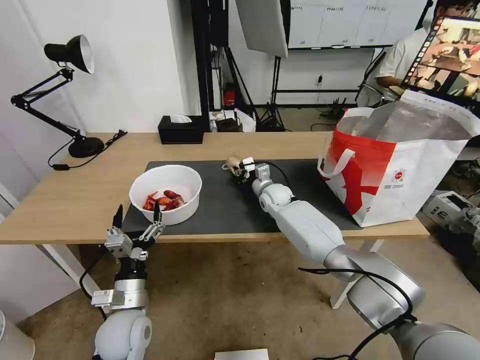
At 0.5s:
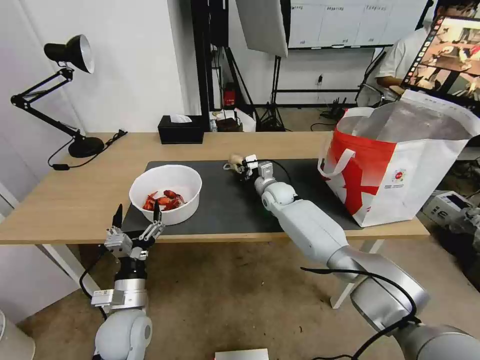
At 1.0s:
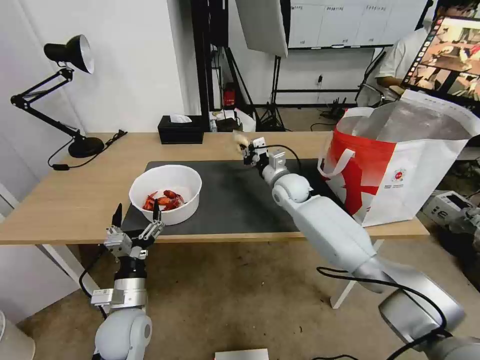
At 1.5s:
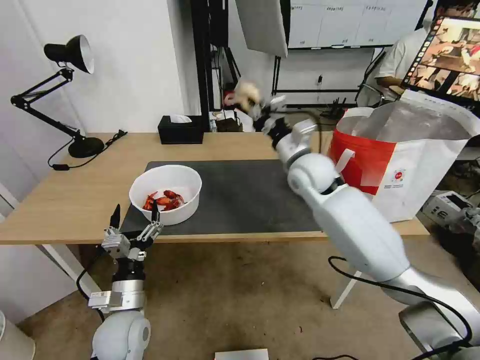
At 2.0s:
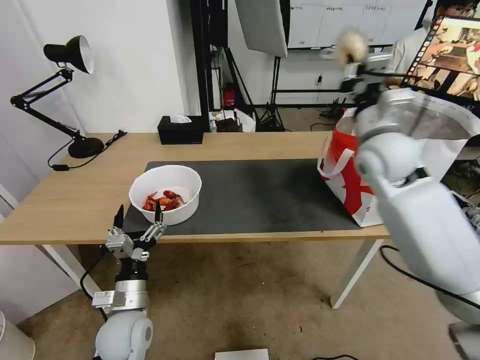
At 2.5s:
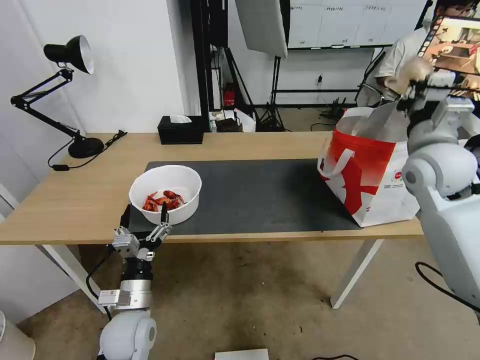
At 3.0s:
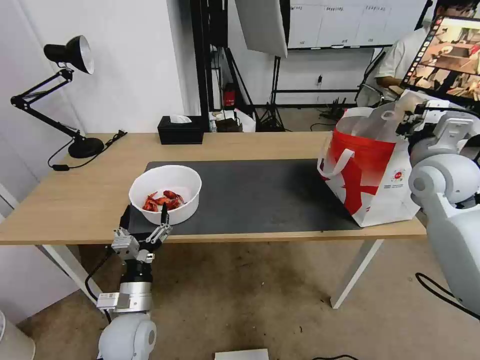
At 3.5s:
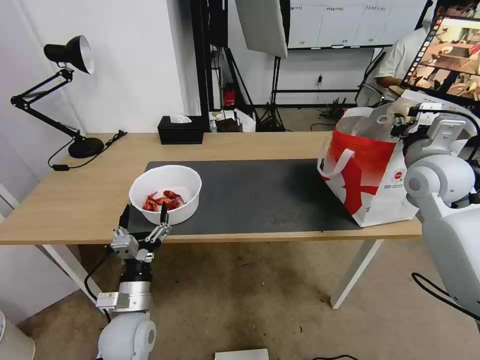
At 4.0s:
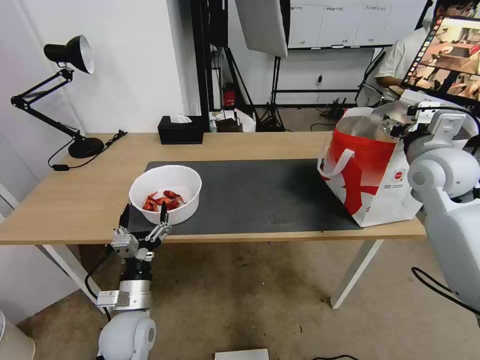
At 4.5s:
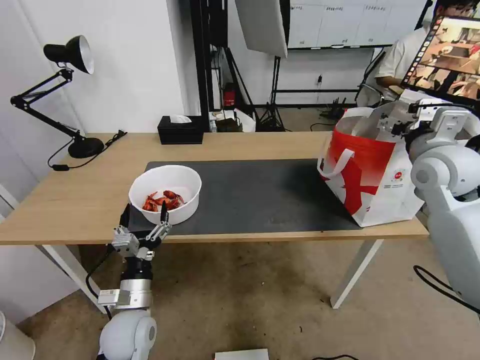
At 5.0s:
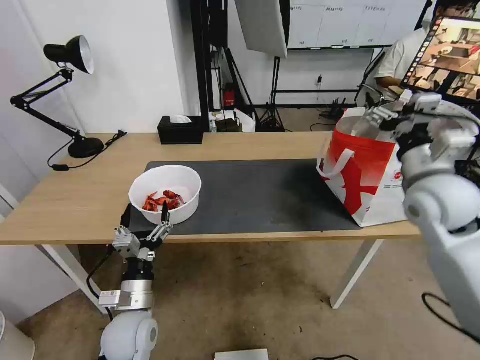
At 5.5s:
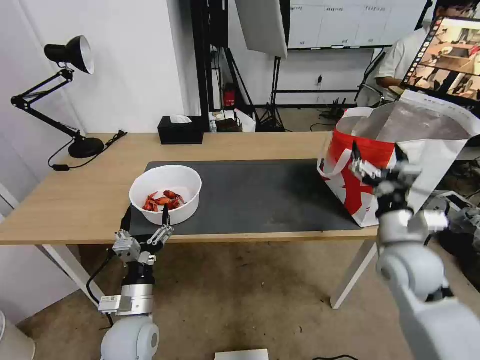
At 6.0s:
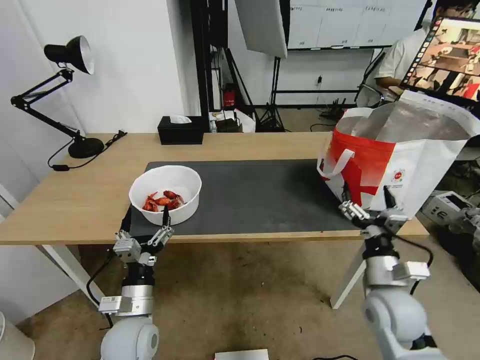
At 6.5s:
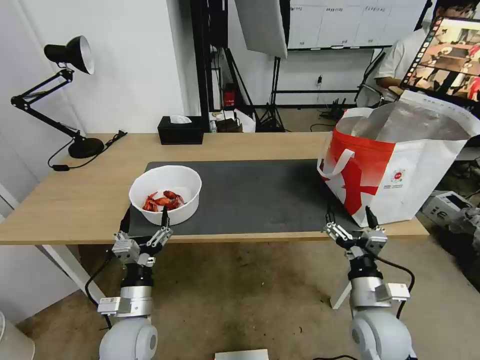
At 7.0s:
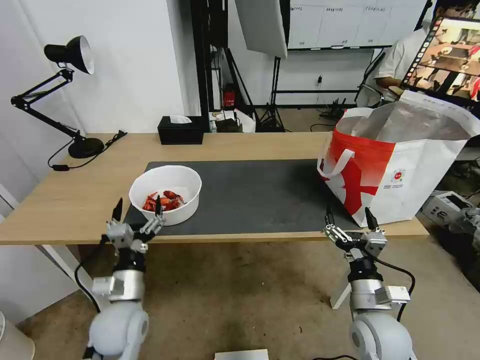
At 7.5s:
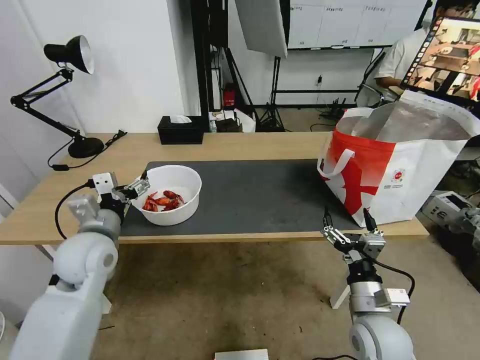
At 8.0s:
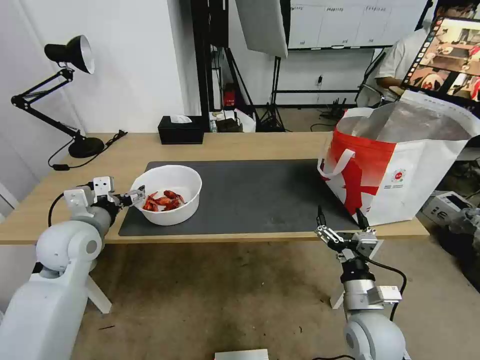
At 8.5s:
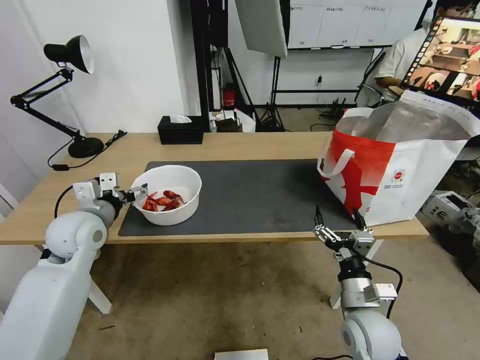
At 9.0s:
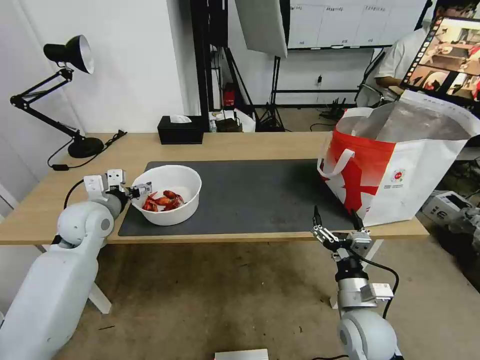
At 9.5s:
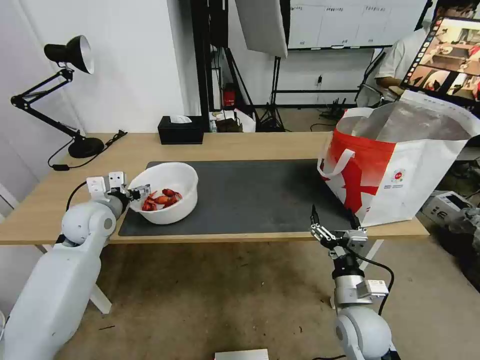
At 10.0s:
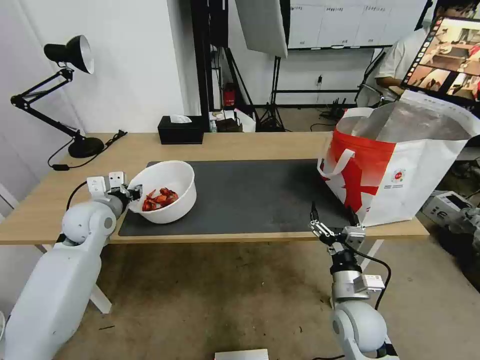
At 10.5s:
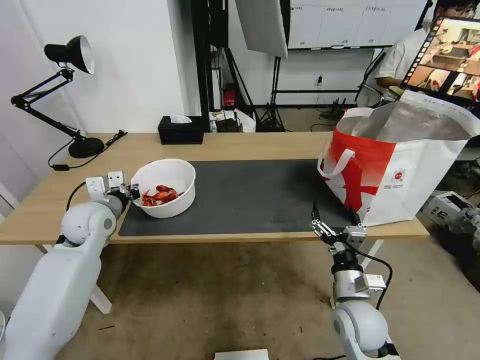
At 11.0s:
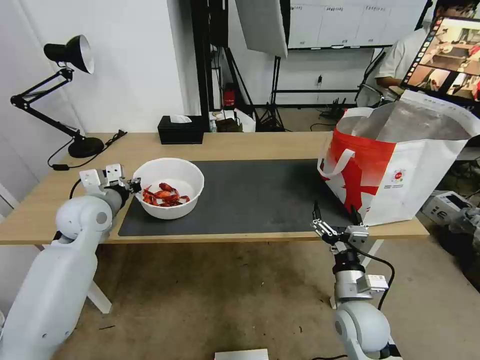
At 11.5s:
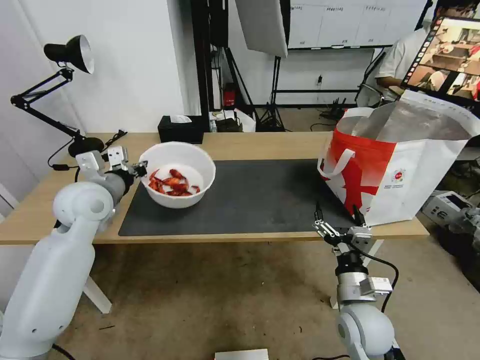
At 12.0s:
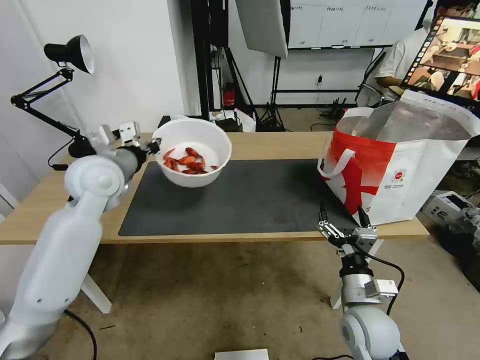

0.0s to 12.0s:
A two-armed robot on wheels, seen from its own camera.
Task of the whole recording: Pick up the trash from the table and place it into the takeout bag.
0.0s to 2.0s: The right gripper moves upward, to the right and backward, approximately 35 cm.
2.0s to 4.0s: The right gripper travels to the right by approximately 10 cm, and opens up.
4.0s to 6.0s: The right gripper is displaced downward and backward by about 25 cm.
6.0s to 8.0s: The left gripper goes approximately 25 cm upward, forward and to the left; the right gripper shifts by about 5 cm.
8.0s to 10.0s: The left gripper heads forward, covering roughly 5 cm, and closes its fingers.
10.0s to 12.0s: The left gripper shifts about 15 cm upward and to the right.

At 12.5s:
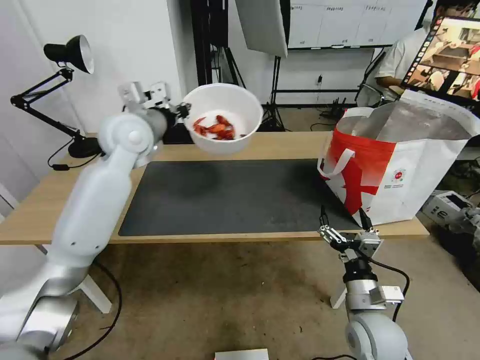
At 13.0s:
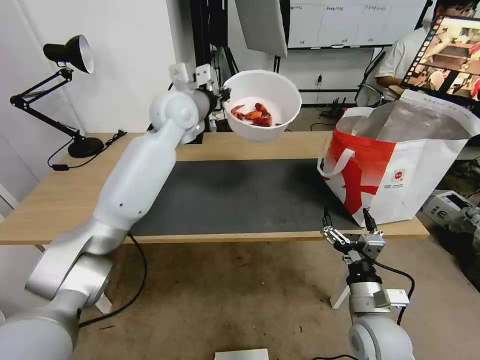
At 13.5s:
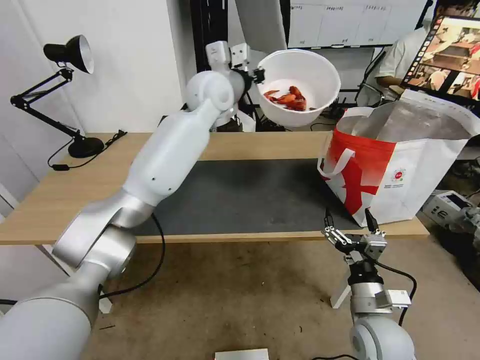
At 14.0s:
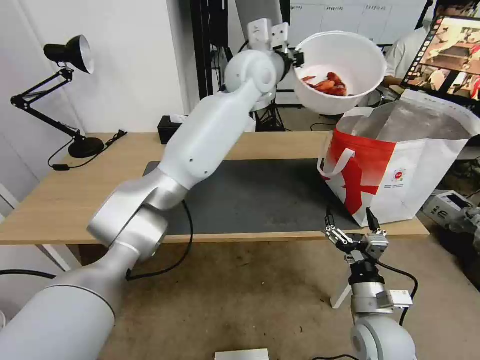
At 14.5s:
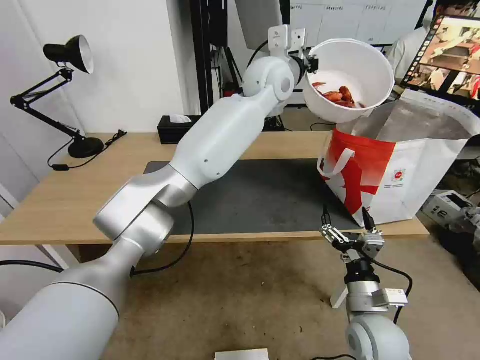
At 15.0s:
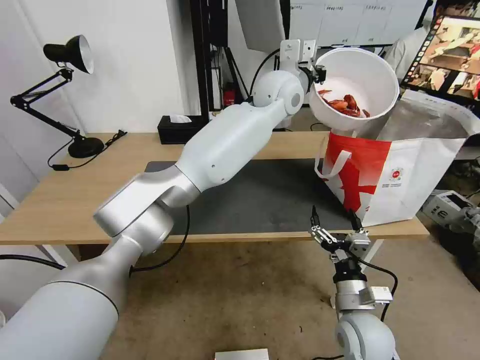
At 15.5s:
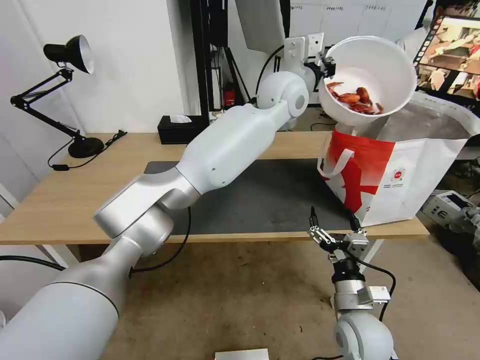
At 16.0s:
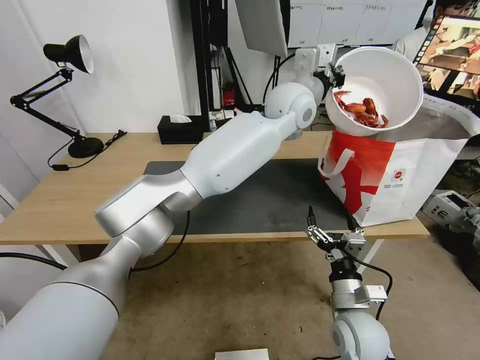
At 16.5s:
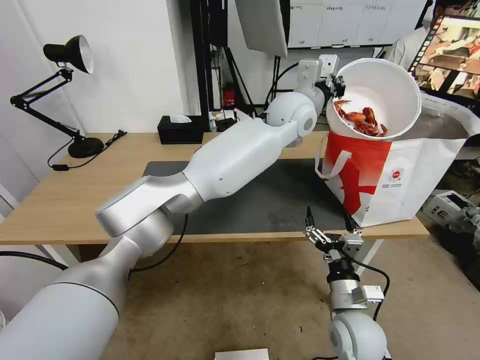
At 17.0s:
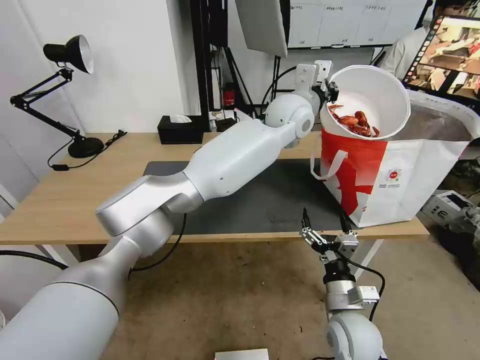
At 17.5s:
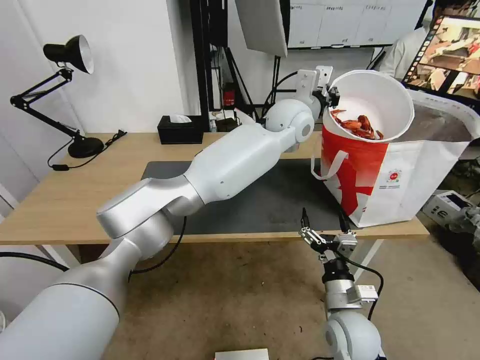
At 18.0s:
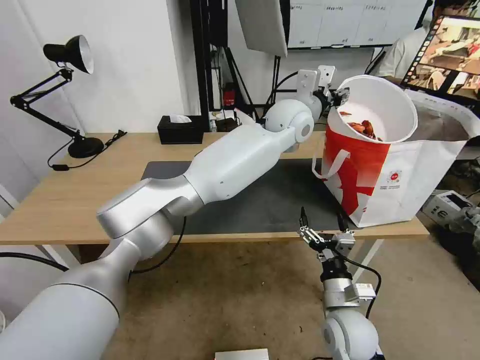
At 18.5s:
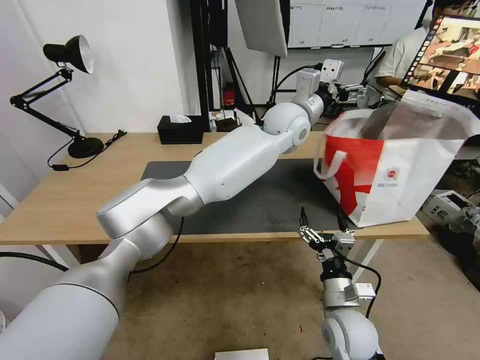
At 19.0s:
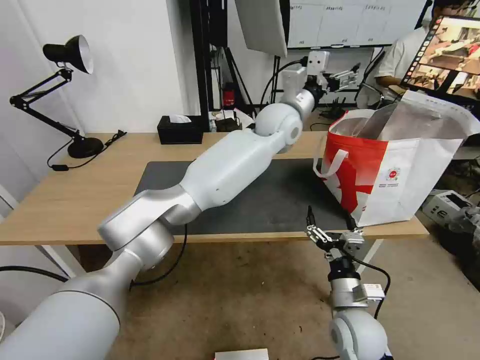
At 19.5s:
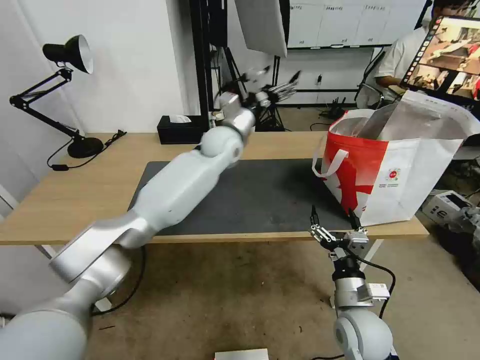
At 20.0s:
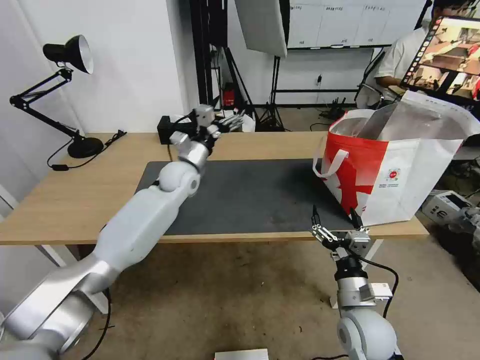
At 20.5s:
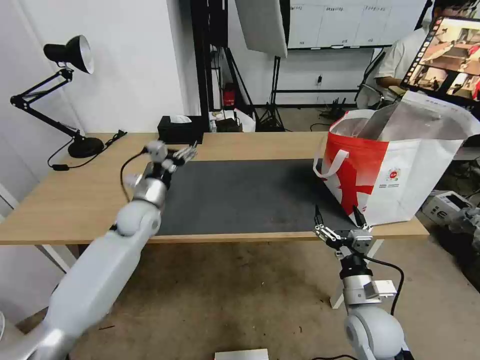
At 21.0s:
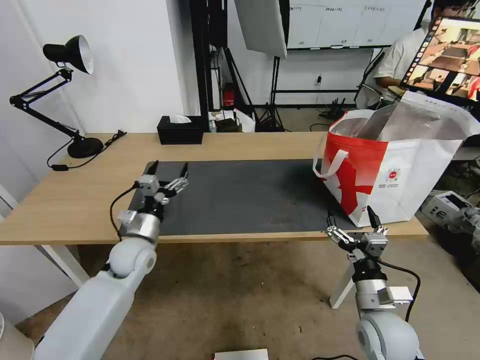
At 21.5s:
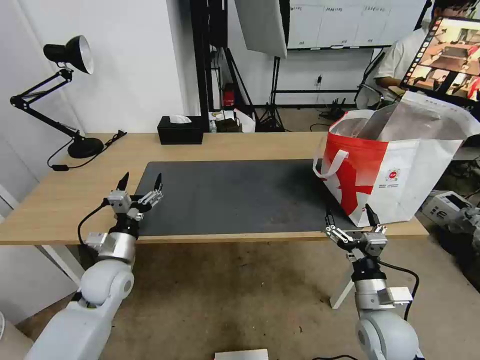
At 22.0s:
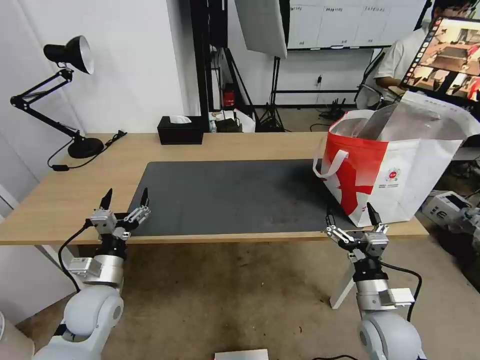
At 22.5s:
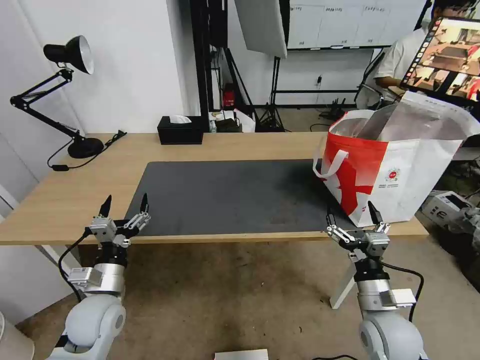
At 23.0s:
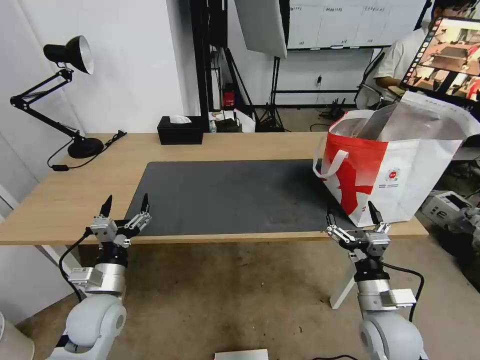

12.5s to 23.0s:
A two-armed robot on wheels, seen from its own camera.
Task of the whole recording: Pick up the trash from the table and place it into the takeout bag.
12.5s to 14.5s: The left gripper shifts some 30 cm to the right.
14.5s to 16.5s: The left gripper heads downward, covering about 5 cm.
16.5s to 19.0s: The left gripper opens.
19.0s to 21.0s: The left gripper goes approximately 50 cm to the left, downward and backward, while the right gripper heads to the right, covering roughly 5 cm.
21.0s to 23.0s: The left gripper moves backward, about 15 cm.
